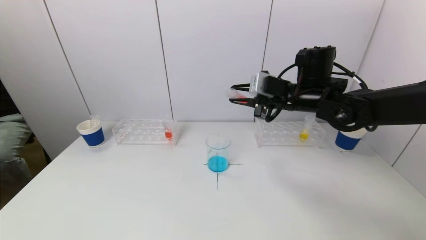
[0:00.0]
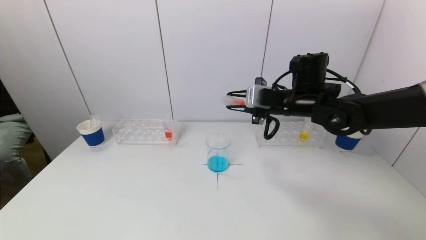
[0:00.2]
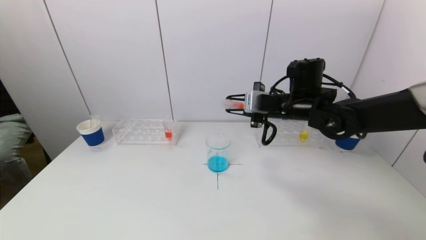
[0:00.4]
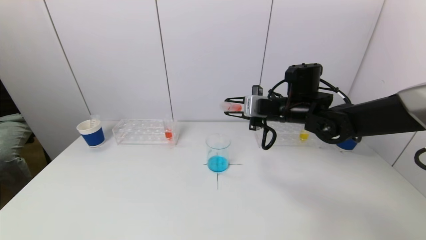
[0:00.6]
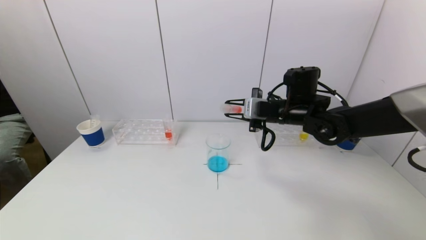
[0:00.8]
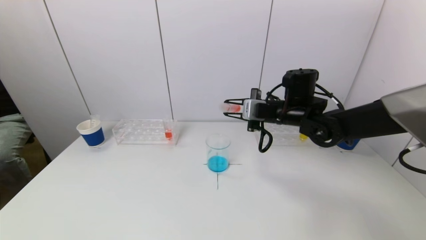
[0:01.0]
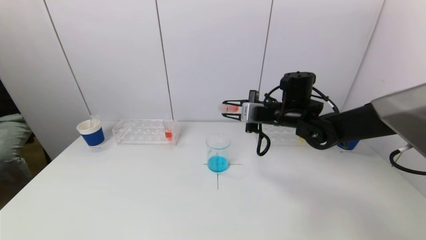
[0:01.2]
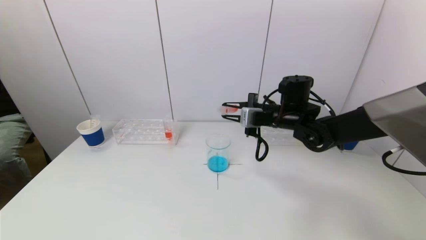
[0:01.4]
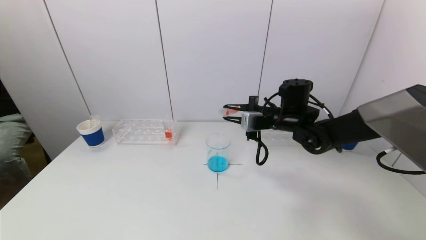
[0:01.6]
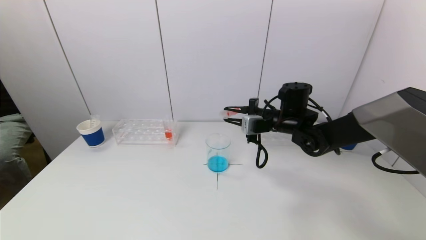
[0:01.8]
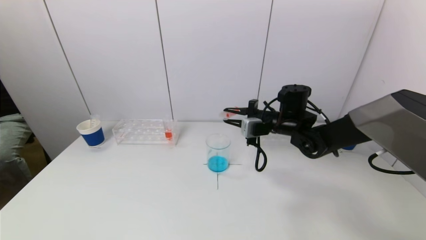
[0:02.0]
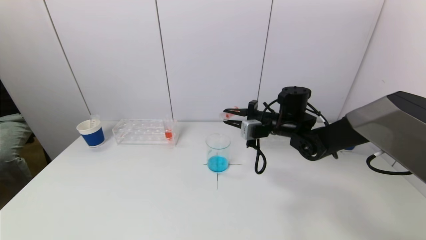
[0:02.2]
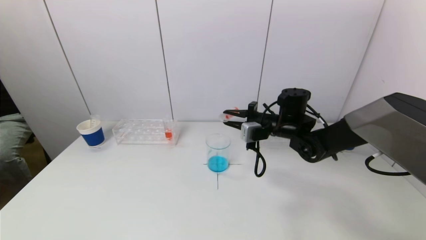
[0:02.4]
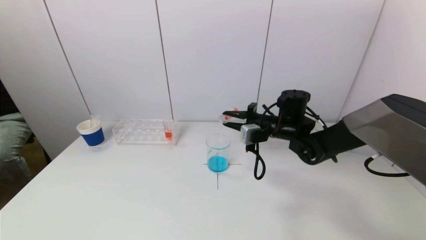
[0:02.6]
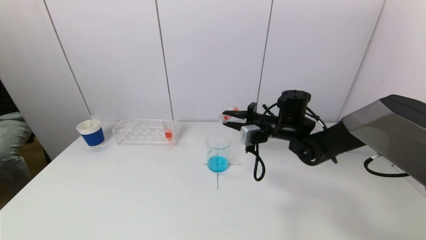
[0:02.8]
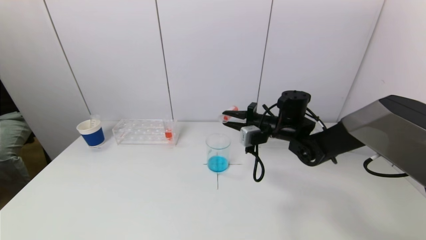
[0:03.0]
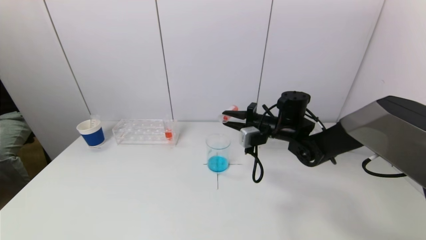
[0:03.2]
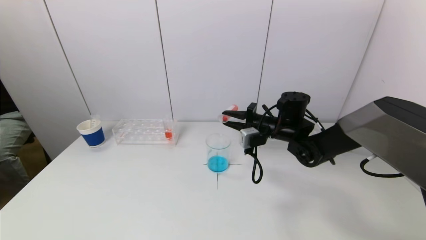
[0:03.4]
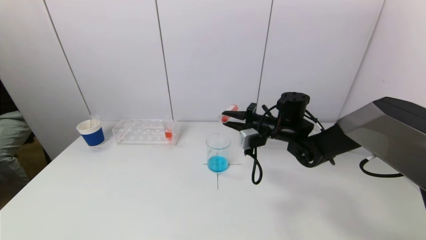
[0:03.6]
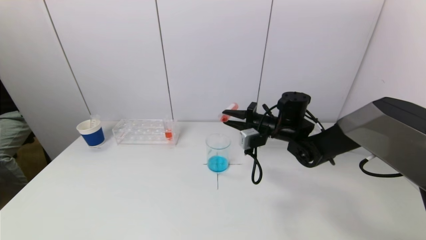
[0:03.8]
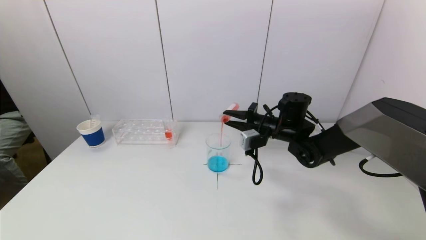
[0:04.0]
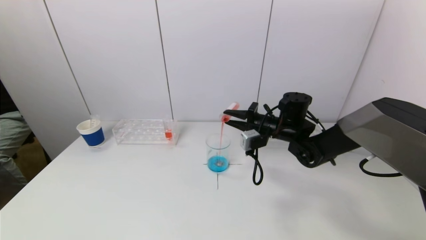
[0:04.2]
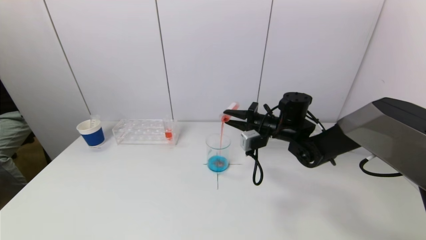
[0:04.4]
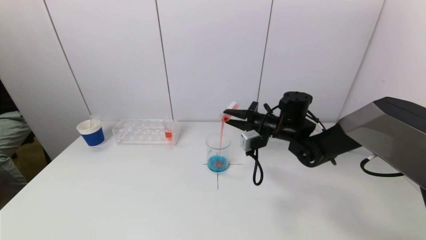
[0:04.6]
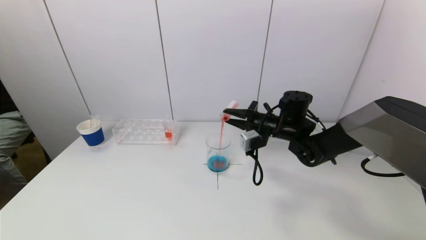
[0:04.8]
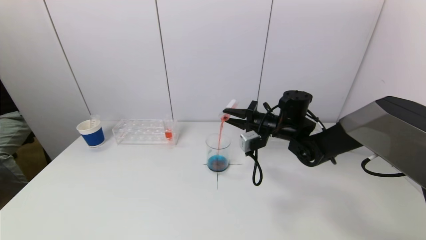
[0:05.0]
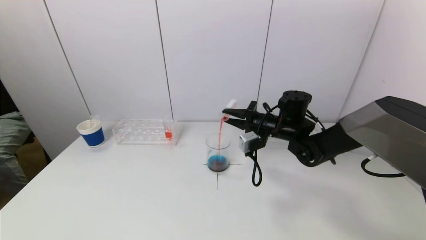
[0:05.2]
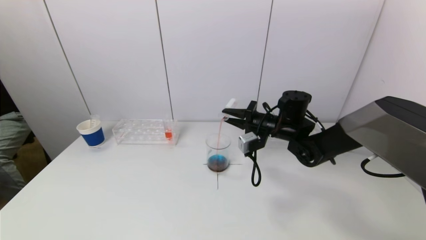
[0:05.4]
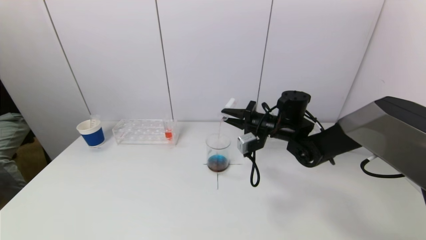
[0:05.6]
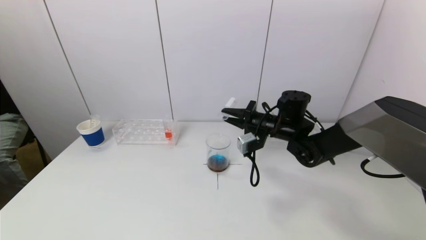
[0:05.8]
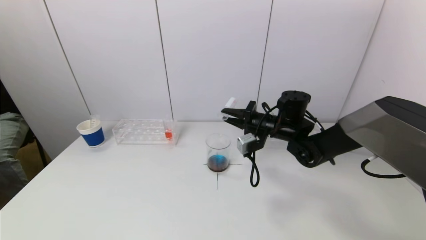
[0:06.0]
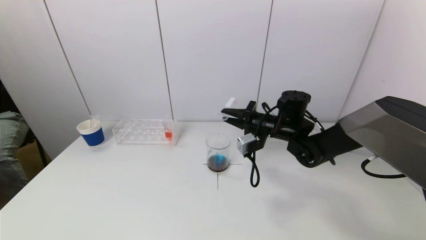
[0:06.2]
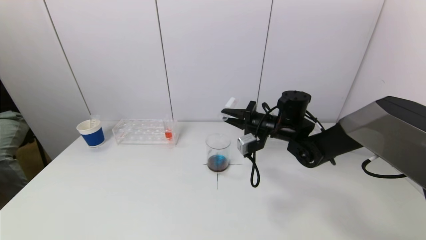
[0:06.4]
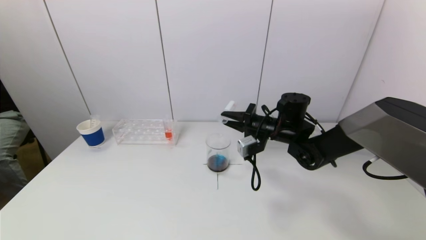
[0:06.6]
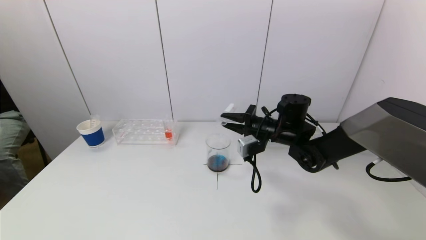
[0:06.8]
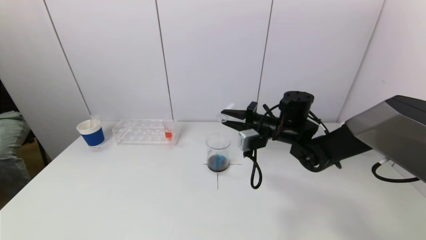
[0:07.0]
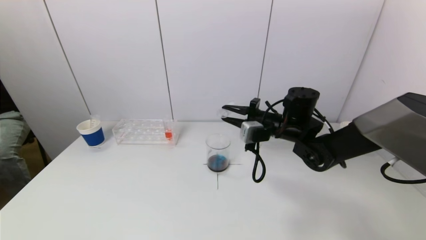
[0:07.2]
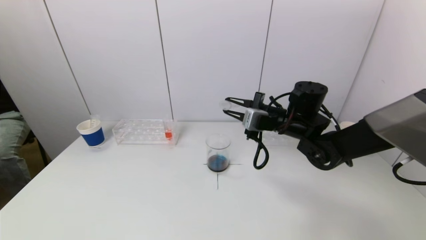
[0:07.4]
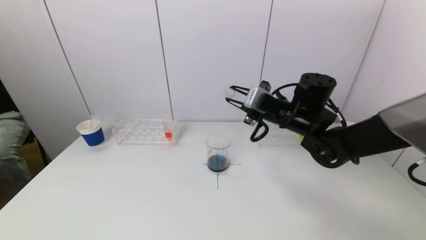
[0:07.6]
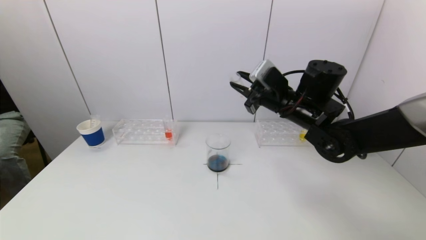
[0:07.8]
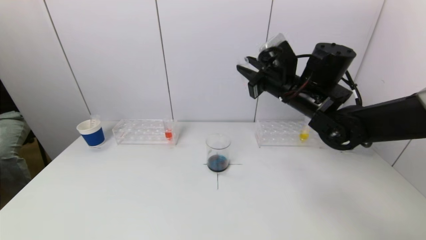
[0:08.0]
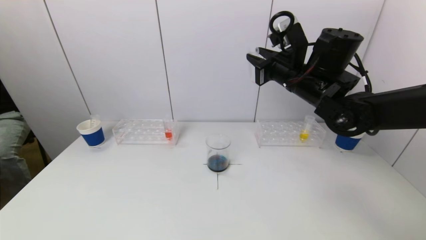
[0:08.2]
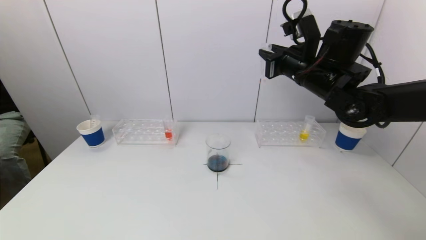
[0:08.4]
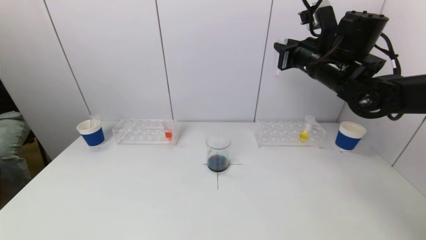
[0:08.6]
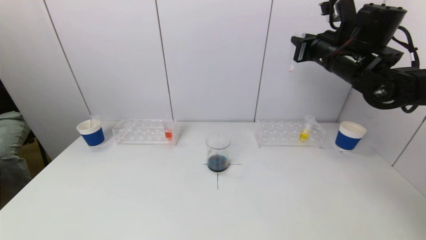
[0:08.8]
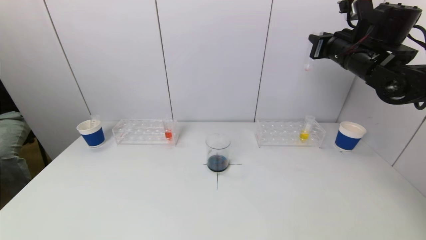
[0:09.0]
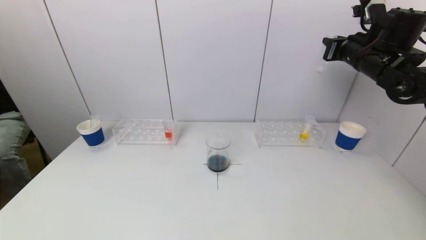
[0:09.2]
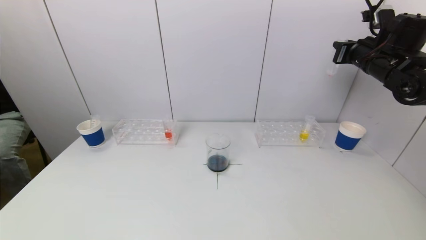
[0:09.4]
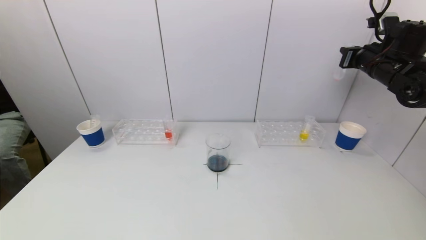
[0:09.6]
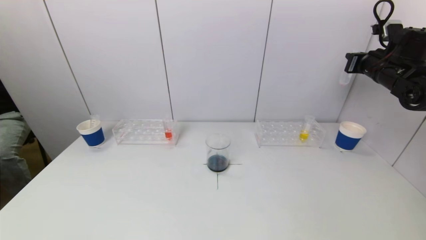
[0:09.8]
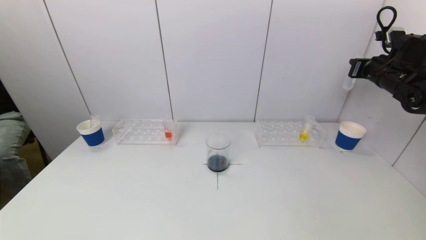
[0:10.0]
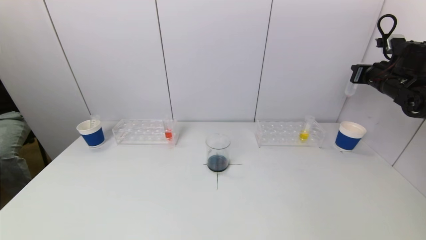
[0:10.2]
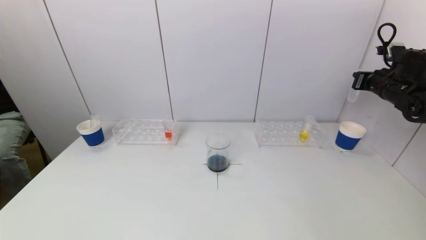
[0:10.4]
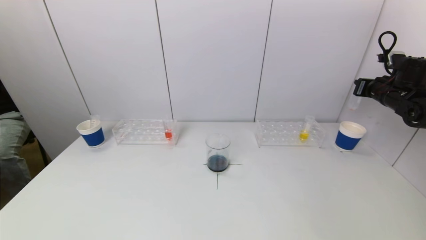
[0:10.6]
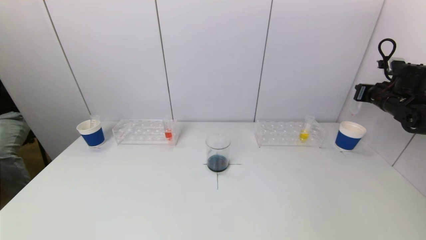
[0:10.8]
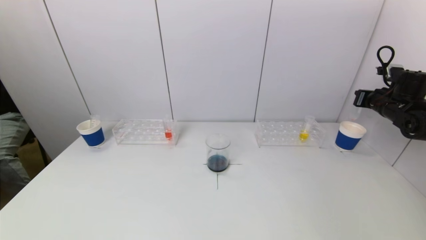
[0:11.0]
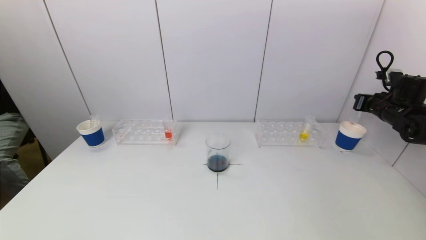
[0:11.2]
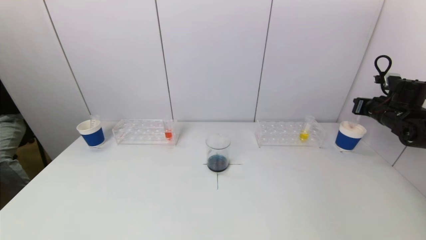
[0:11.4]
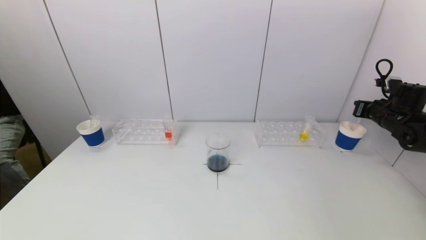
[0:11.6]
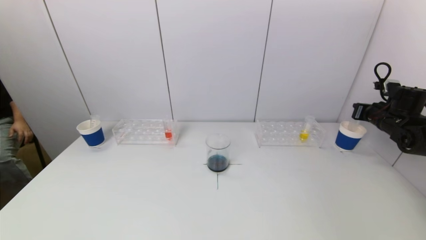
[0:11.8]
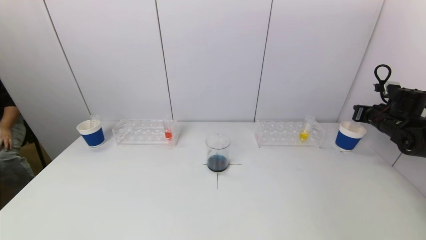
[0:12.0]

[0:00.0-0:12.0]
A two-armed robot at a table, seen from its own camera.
Task of the whole recording: pick up a test tube with pigment on left test tube rack and a test tube with pigment on right test tube rack by grippers and pour them into the beaker.
Step, 0:00.0 to 0:06.0: Pour the red reagent into the graduated cylinder with the right gripper.
0:00.0 to 0:01.6: The right gripper is displaced downward by about 5 cm.
0:01.6 to 0:03.0: The grippers move only a little.
0:03.0 to 0:04.4: The grippers move only a little.
0:04.4 to 0:06.0: There are only small adjustments of the grippers.
0:06.0 to 0:07.6: The right gripper is displaced upward by about 5 cm.
0:07.6 to 0:09.0: The right gripper is displaced to the right and upward by approximately 20 cm.
0:09.0 to 0:10.4: The right gripper moves to the right and downward, some 15 cm.
0:10.4 to 0:12.0: The right gripper goes roughly 10 cm downward.

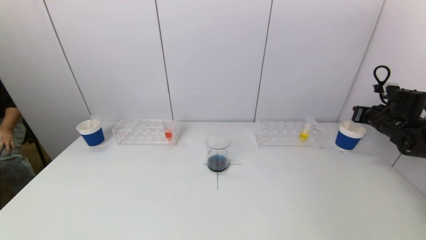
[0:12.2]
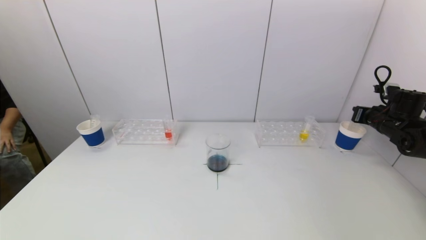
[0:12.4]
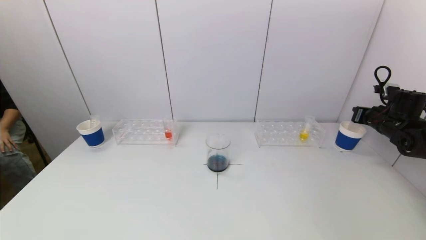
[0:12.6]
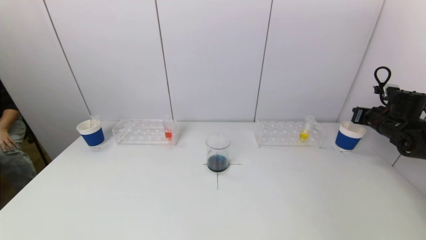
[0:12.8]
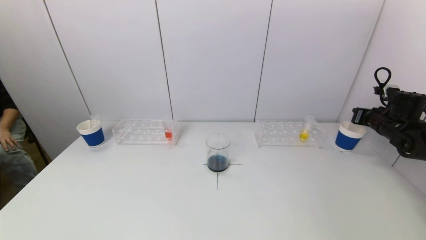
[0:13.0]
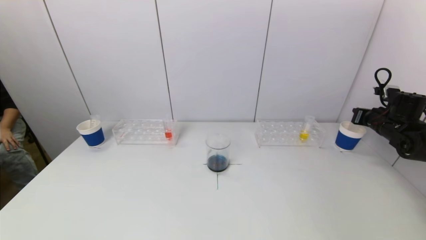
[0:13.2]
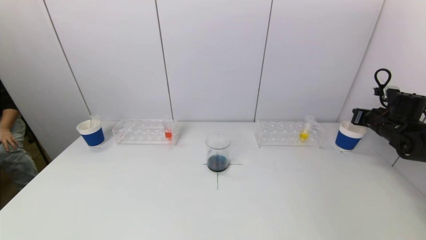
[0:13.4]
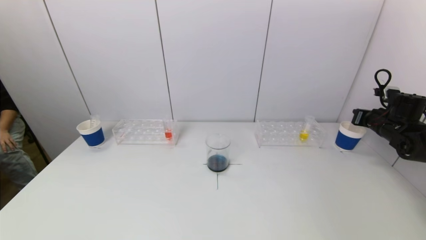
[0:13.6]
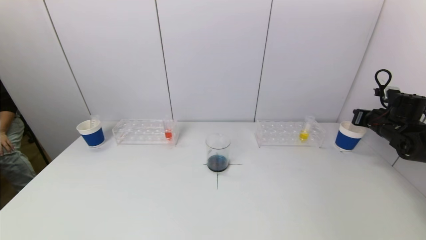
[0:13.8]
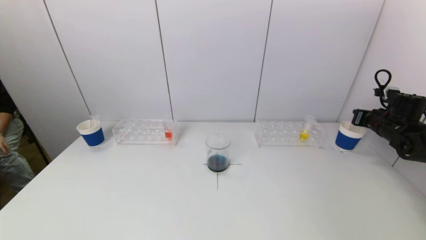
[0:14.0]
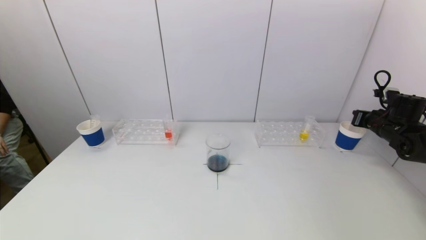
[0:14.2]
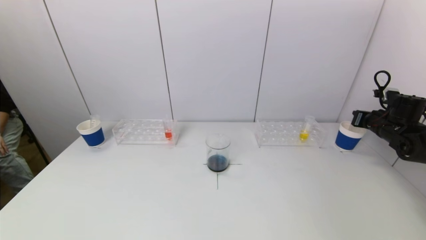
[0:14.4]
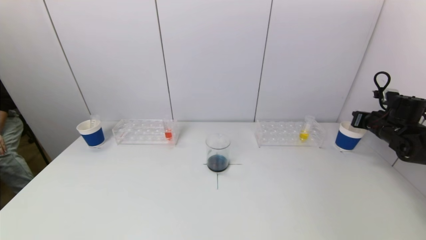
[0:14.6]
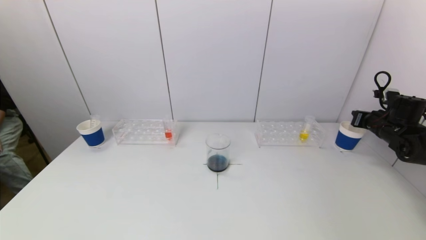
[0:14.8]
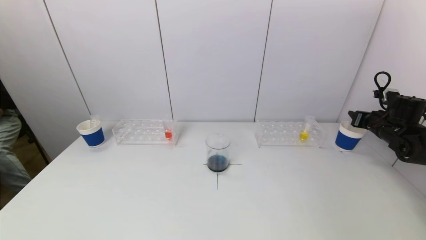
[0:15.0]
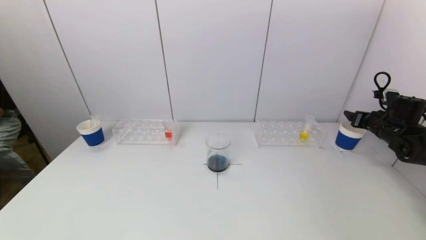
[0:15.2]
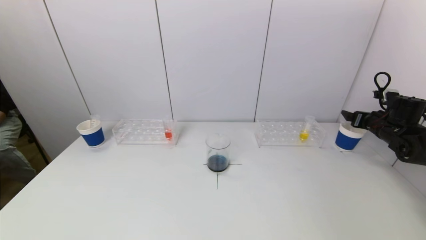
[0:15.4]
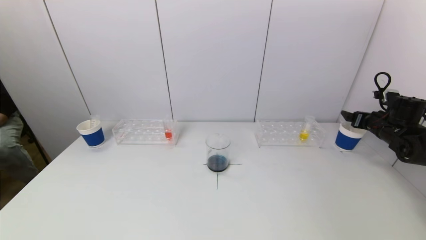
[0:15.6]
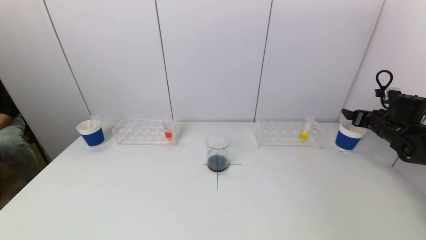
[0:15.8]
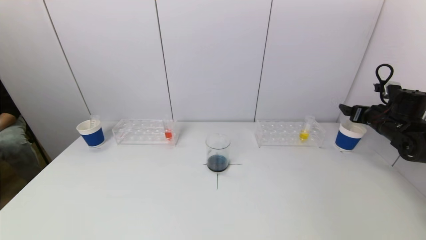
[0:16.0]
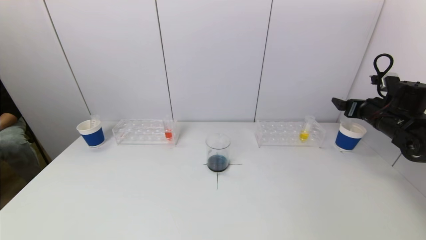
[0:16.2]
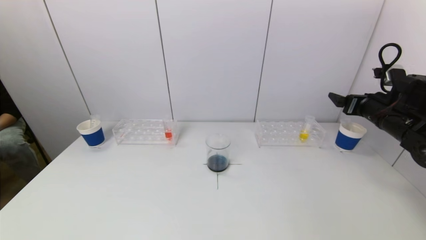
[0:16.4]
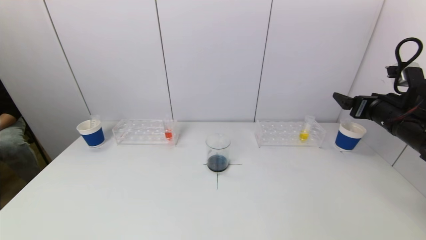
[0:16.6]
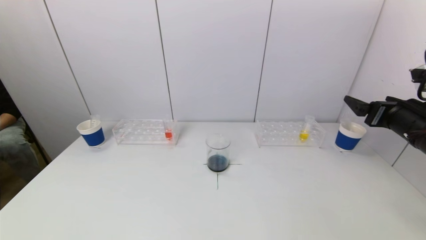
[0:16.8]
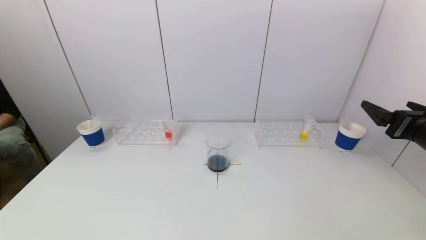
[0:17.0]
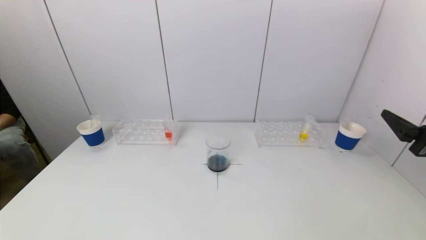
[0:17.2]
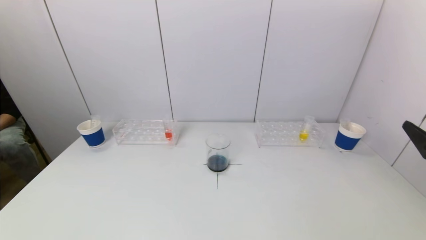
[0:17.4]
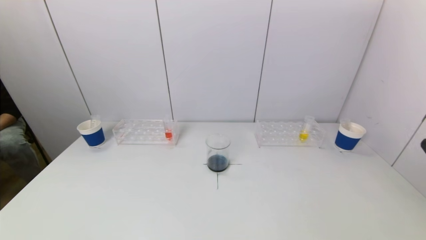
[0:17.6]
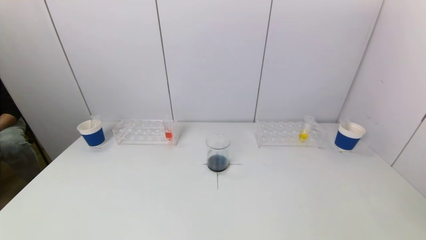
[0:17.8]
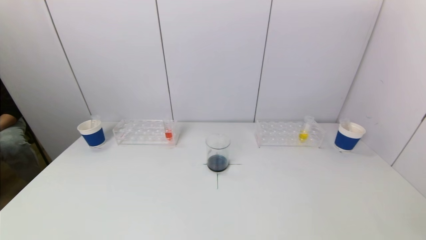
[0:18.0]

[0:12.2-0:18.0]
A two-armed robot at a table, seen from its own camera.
Task of the whole recording: pick up a test tube with pigment on left test tube rack and a test tube with pigment on right test tube rack by grippers and pour them into the beaker.
0:12.2 to 0:13.6: Both grippers stay about where they are.
0:13.6 to 0:15.0: The right gripper opens.
0:15.0 to 0:16.6: The right gripper travels to the left, backward and upward by some 20 cm, and opens its fingers.
0:16.6 to 0:18.0: The right gripper goes roughly 30 cm backward.
